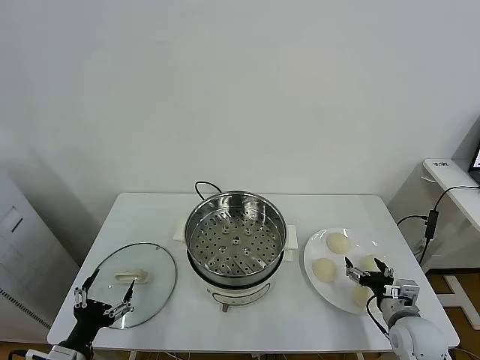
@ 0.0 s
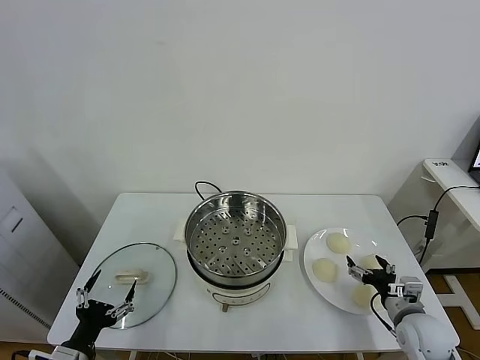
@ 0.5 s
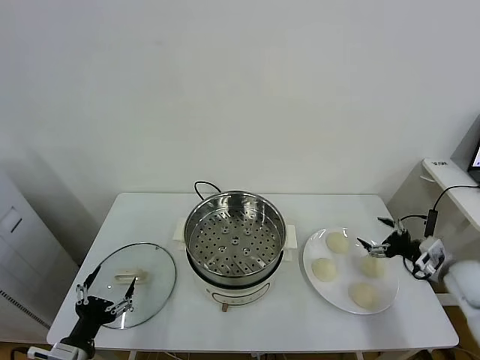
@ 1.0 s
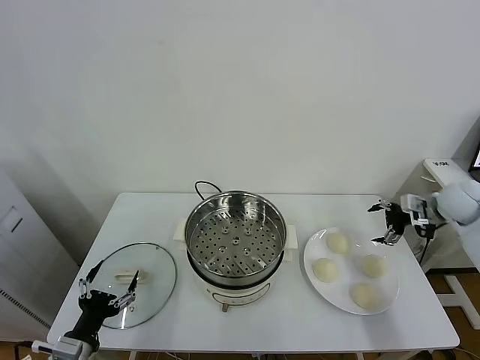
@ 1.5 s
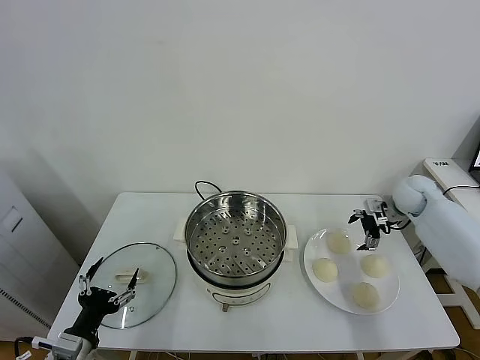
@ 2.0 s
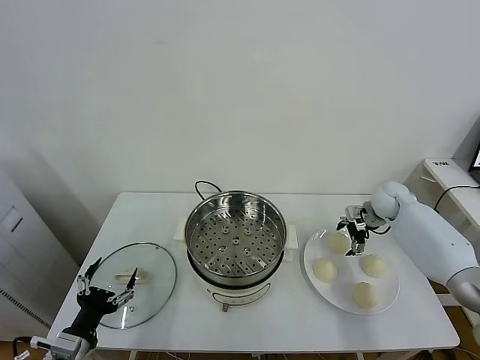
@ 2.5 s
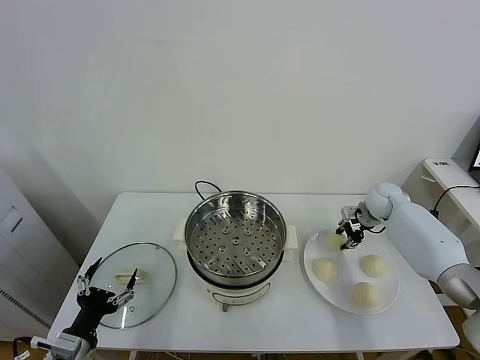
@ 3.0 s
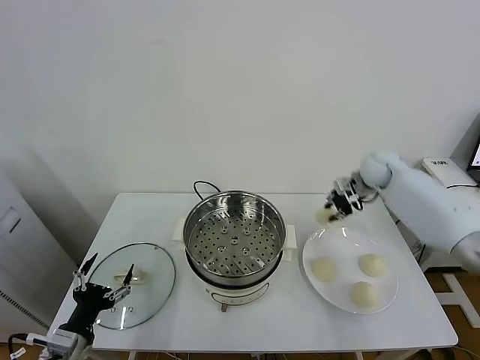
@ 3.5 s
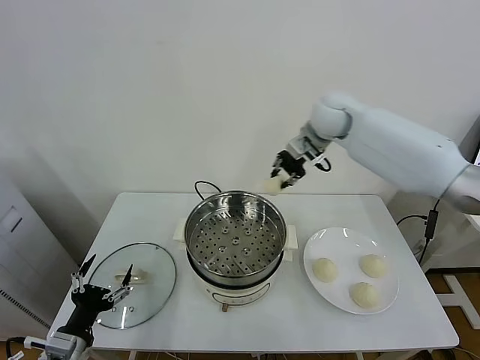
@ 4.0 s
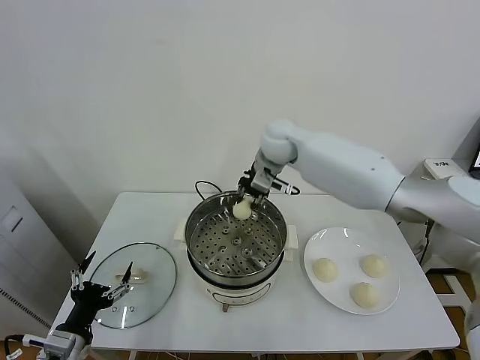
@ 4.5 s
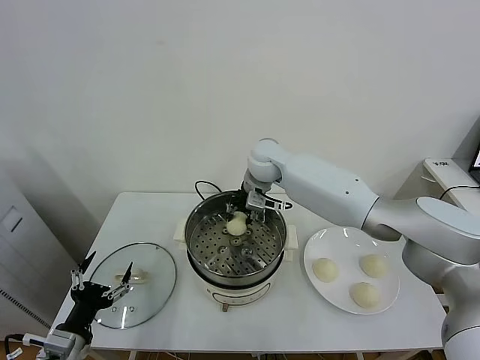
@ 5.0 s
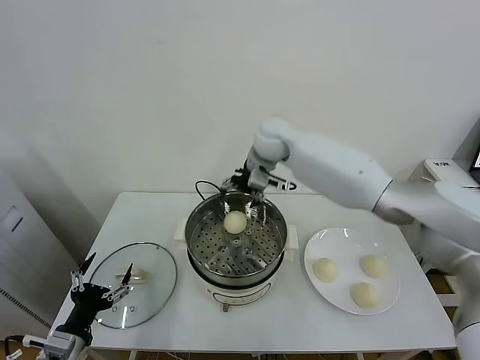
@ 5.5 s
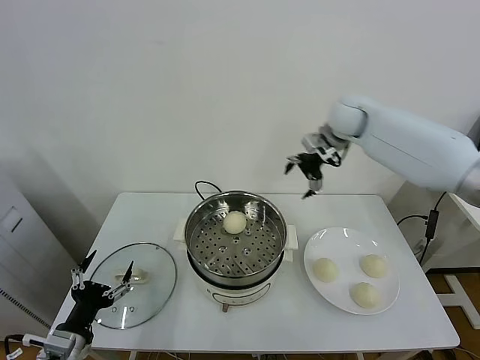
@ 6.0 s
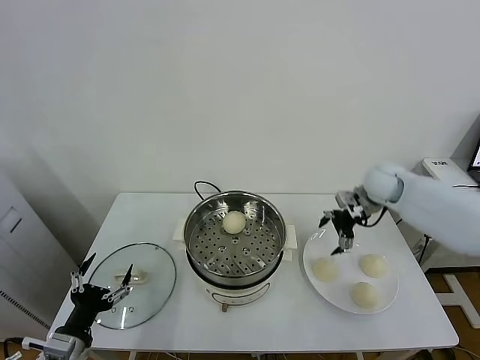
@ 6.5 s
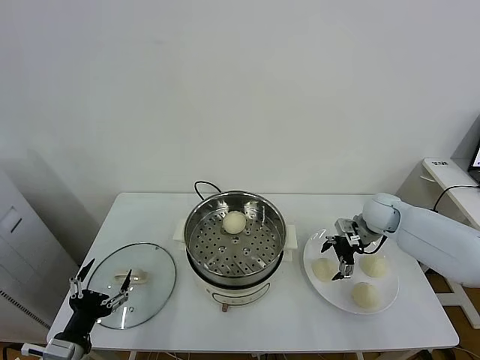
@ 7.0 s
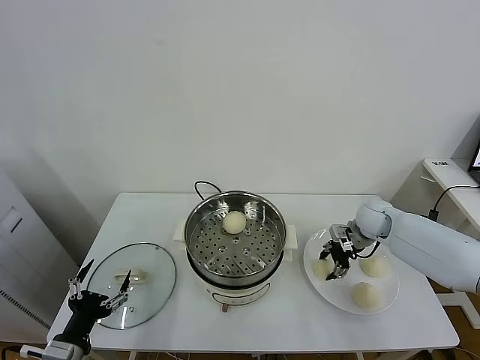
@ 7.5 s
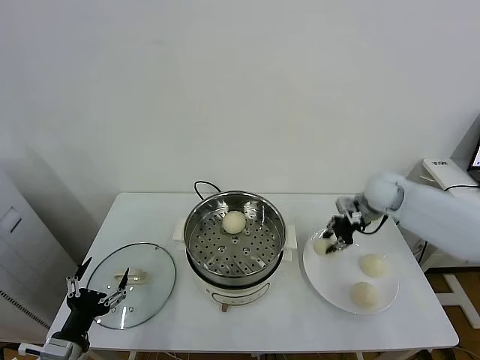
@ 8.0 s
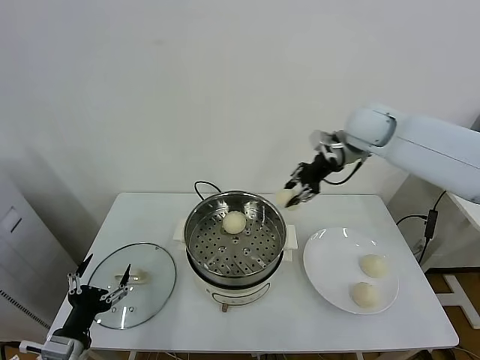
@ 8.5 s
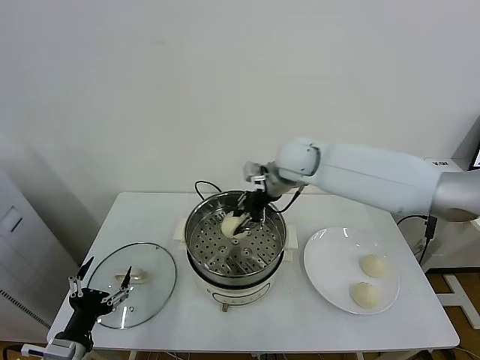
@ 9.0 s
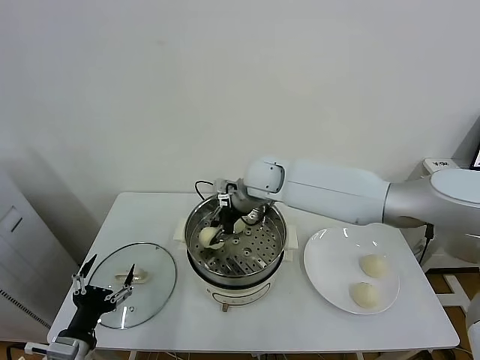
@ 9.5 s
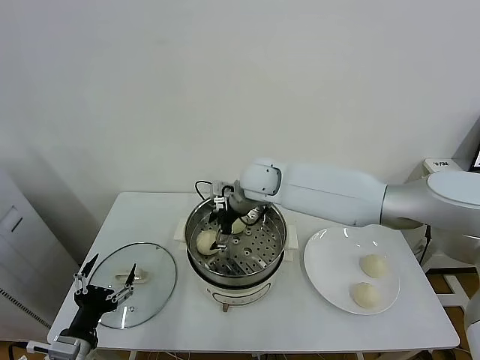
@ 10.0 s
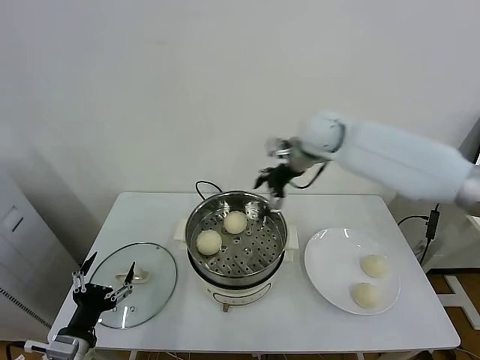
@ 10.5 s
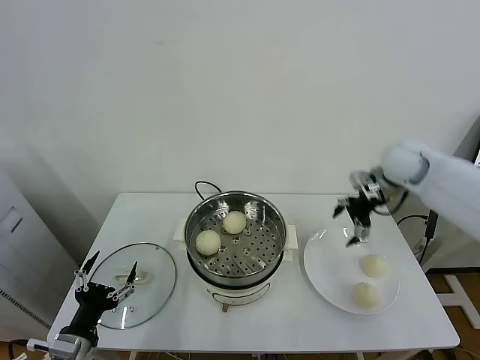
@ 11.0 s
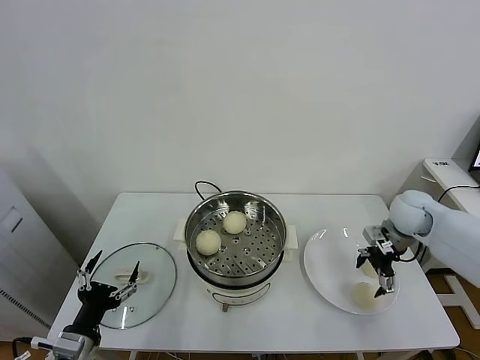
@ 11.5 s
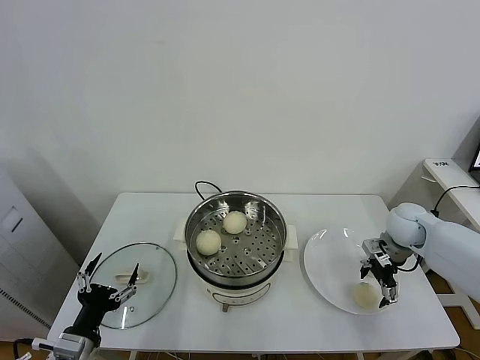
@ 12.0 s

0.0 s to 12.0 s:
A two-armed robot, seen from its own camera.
Task of the whole recording: take steamed baozi put them in steamer.
Step, 0.0 to 3.0 s: Grasp the baozi in the plate with right gripper.
Step, 3.5 to 5.0 s: Place the baozi on the steamer with right gripper.
Step, 5.5 to 7.5 s: Grasp the baozi in the plate with right gripper.
Step, 8.0 to 9.5 s: Place the baozi on the steamer with right gripper.
2.0 to 4.0 s: The right gripper moves to the left and upward, some 35 cm, and closes up.
4.0 to 6.0 s: The right gripper shifts approximately 10 cm to the right, and opens.
6.0 to 8.0 s: The right gripper travels downward, to the right and backward by approximately 15 cm, and closes its fingers.
8.0 to 10.0 s: The right gripper moves to the left, some 30 cm, and opens its fingers.
10.0 to 12.0 s: The right gripper is displaced to the right by roughly 35 cm.

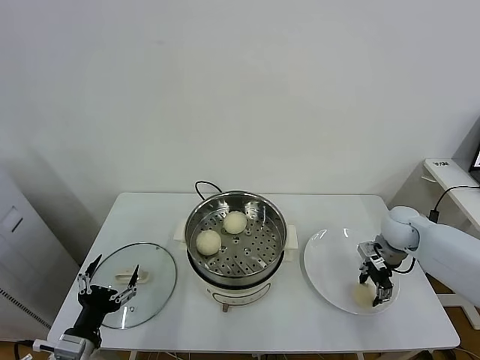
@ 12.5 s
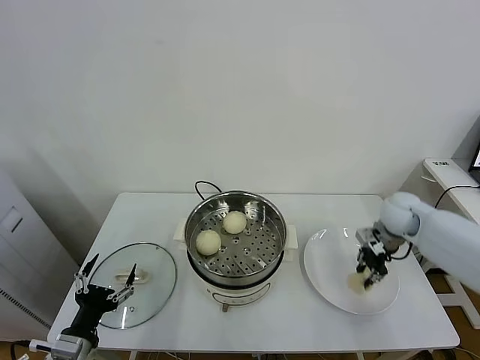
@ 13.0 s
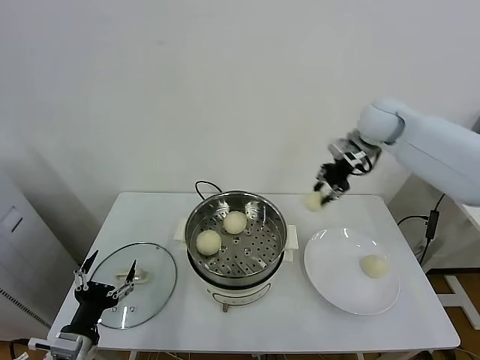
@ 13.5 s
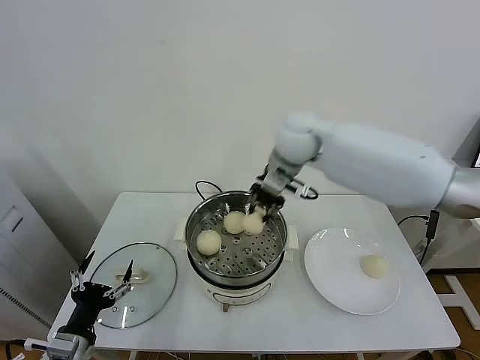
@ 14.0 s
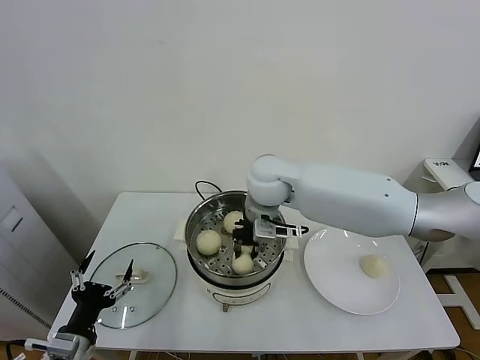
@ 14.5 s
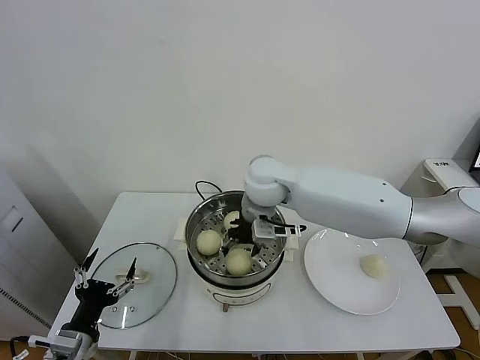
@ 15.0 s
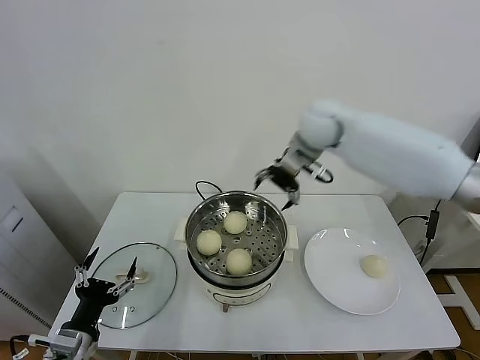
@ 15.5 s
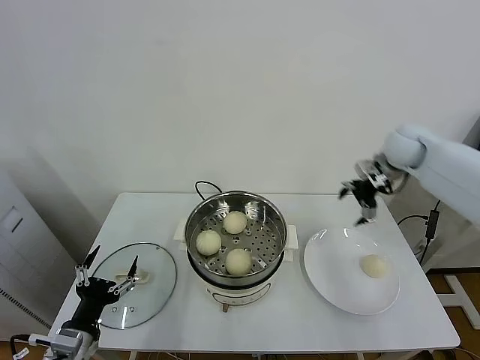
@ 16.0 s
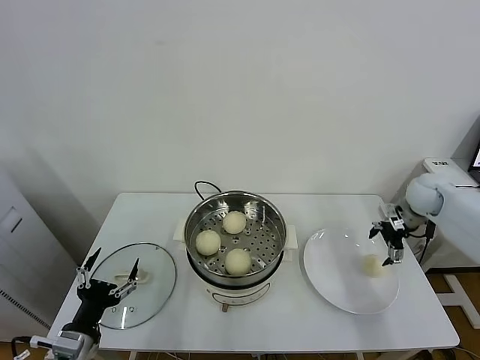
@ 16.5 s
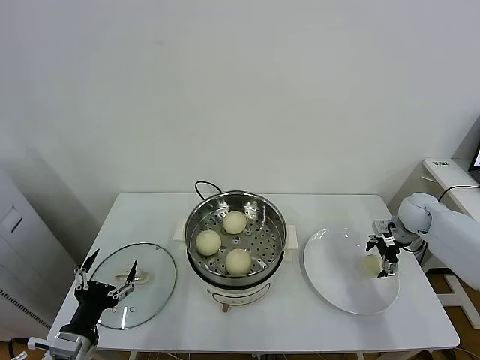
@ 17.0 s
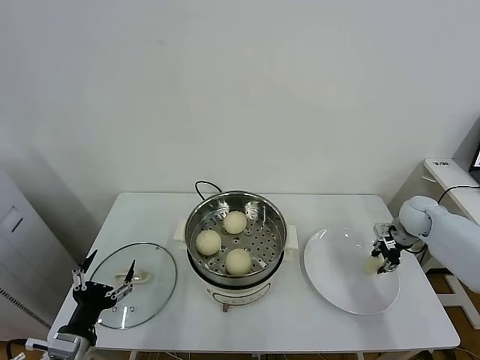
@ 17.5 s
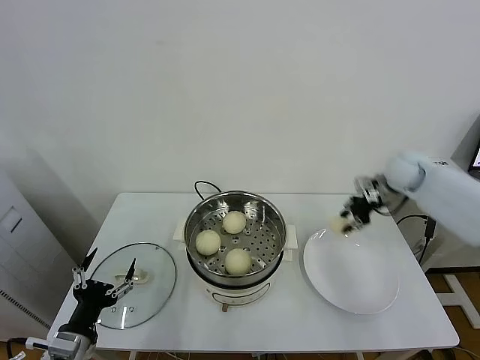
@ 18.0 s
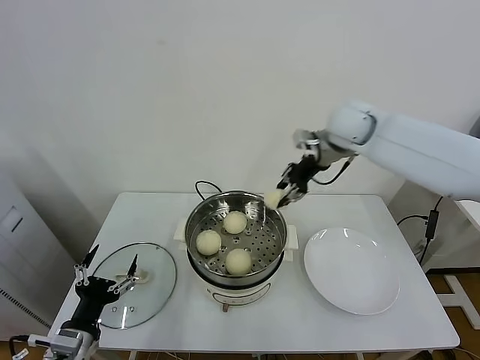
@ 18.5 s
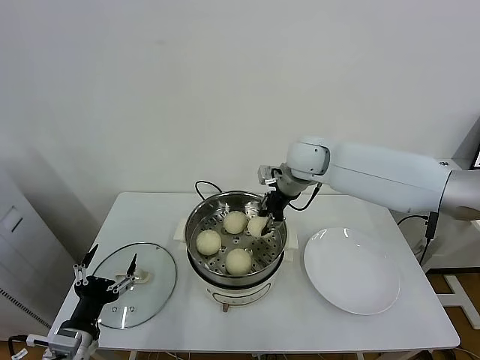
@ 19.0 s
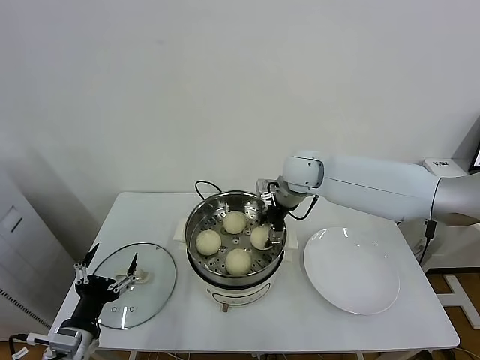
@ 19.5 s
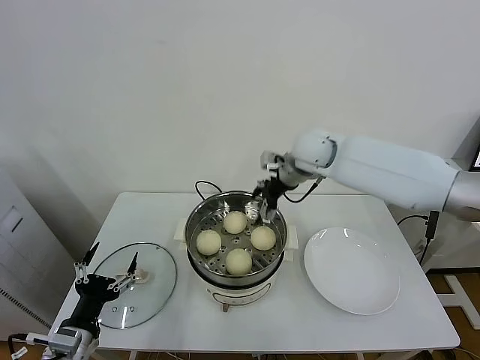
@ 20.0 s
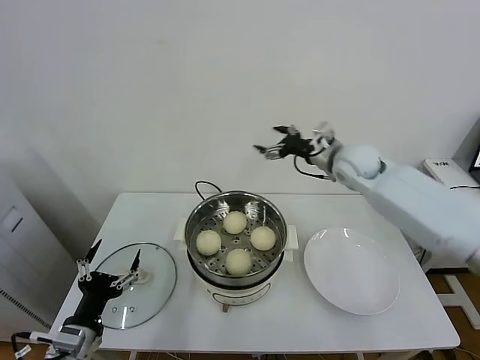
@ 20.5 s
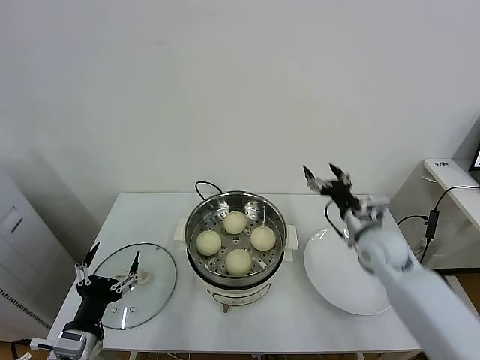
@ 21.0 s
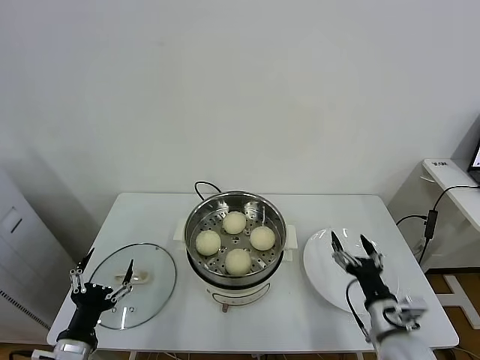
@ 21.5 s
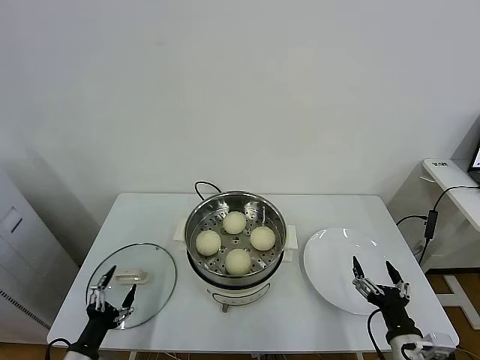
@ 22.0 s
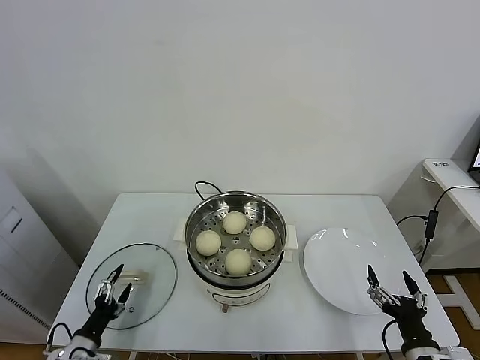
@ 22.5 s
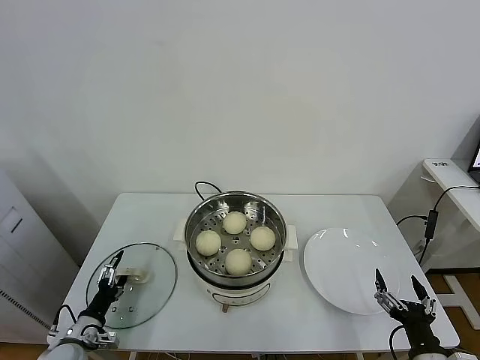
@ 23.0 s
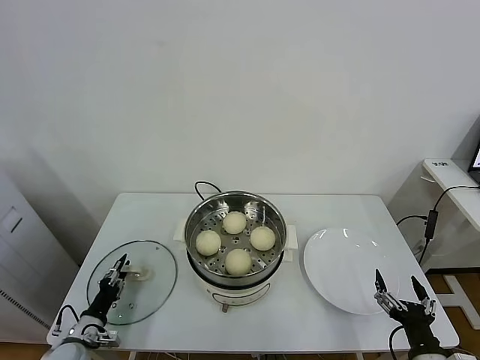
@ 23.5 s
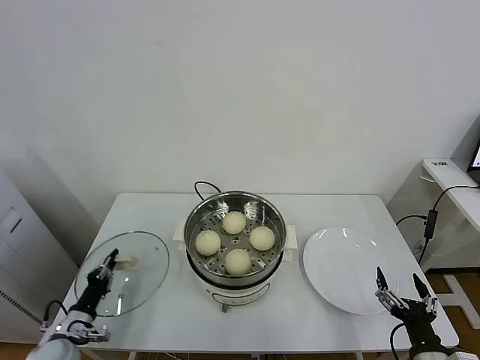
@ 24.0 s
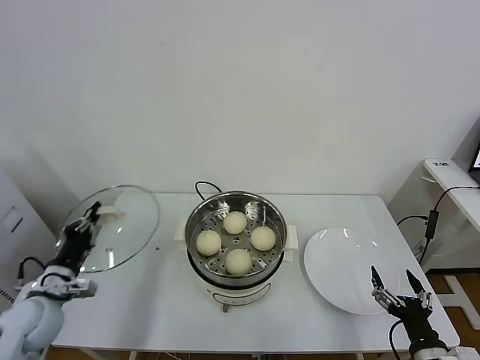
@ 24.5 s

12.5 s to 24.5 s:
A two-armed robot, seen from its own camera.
Task of the whole recording: take steamed baozi put them in steamer.
Step, 13.0 to 15.0 s: Place the baozi on the steamer with right gripper.
Step, 15.5 to 17.0 s: Grasp the baozi in the plate with right gripper.
Step, 17.5 to 19.5 s: Place the baozi on the steamer with right gripper.
Step, 20.0 to 23.5 s: Grasp the pot lid with left gripper.
12.5 to 14.5 s: The right gripper goes roughly 35 cm to the left and upward, and closes up.
14.5 to 16.5 s: The right gripper travels to the right by some 40 cm, and opens its fingers.
16.5 to 18.5 s: The right gripper moves to the left and upward, roughly 30 cm, and closes up.
18.5 to 20.5 s: The right gripper shifts approximately 10 cm downward, and opens its fingers.
20.5 to 22.5 s: The left gripper shifts some 15 cm downward and to the left, while the right gripper shifts roughly 50 cm backward and downward.
22.5 to 24.5 s: The left gripper heads upward and forward, covering roughly 15 cm, and closes.

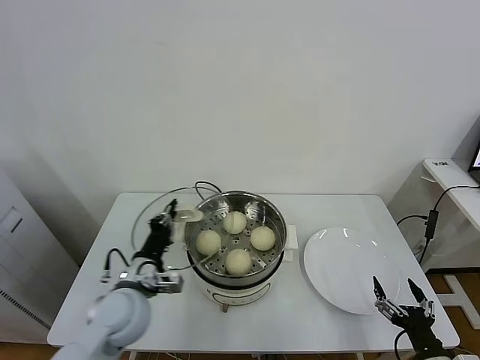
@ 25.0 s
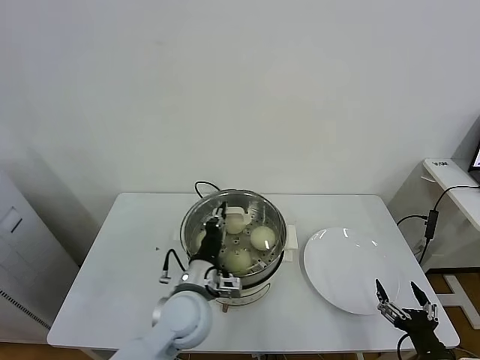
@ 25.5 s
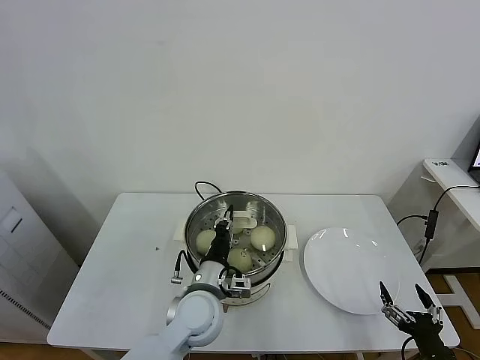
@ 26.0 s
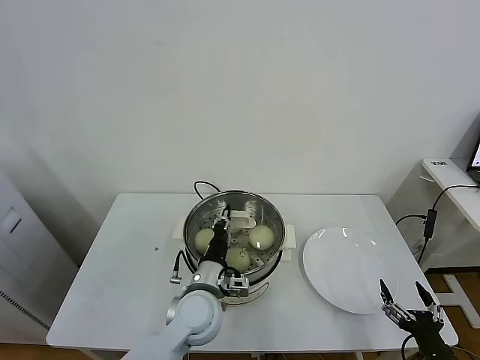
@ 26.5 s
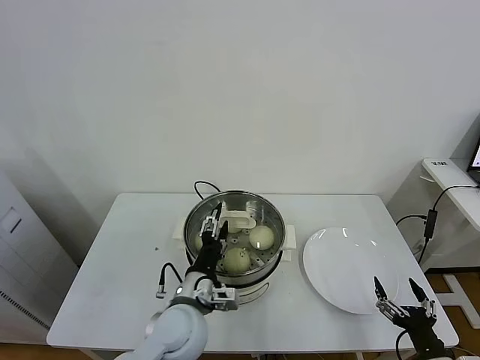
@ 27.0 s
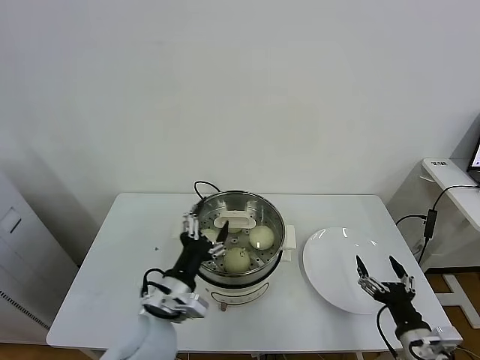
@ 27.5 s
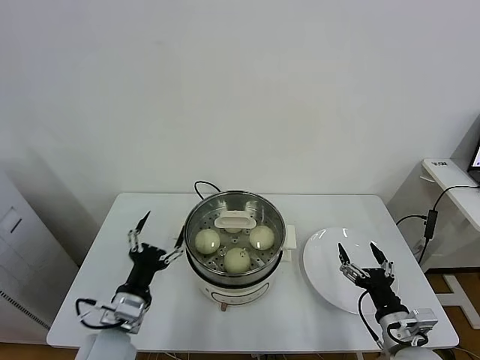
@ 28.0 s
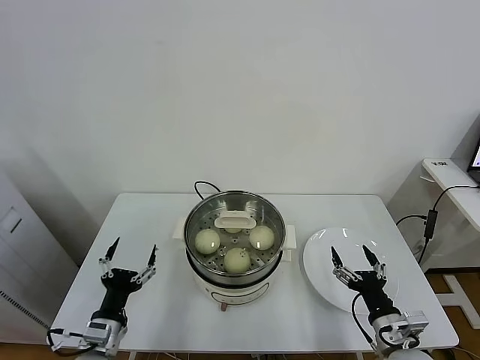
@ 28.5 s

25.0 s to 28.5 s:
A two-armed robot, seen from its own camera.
Task of the whole recording: take steamed baozi put them in steamer.
Step, 25.0 to 27.0 s: Place the pot lid on the steamer with left gripper.
25.0 to 27.0 s: The left gripper is displaced to the right by roughly 10 cm, and opens its fingers.
27.0 to 28.5 s: The left gripper moves to the left, about 20 cm, and opens up; the right gripper is displaced forward and to the left by some 10 cm.
